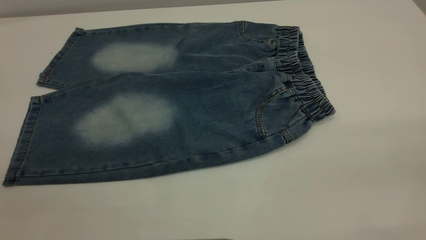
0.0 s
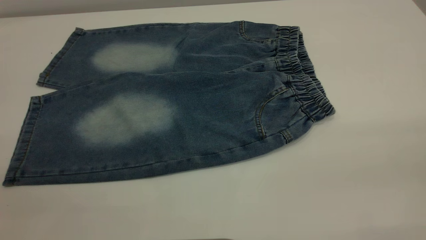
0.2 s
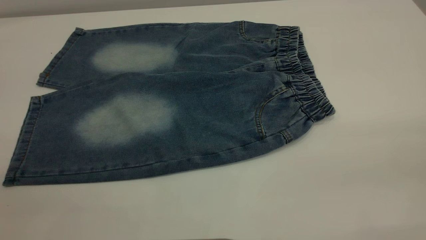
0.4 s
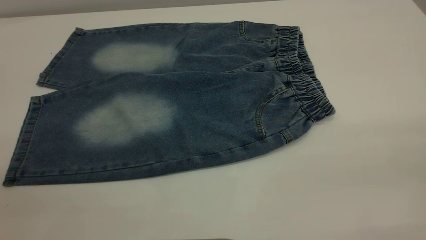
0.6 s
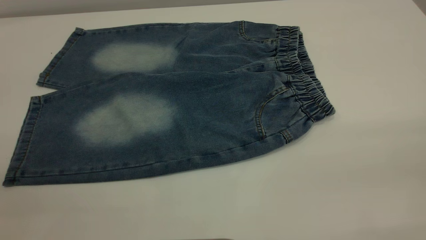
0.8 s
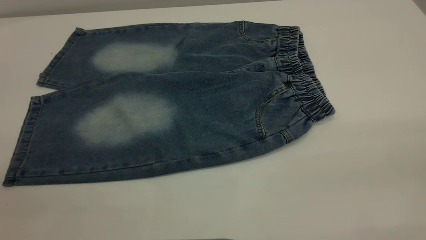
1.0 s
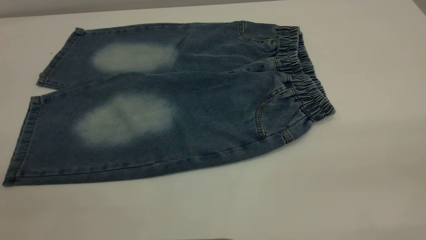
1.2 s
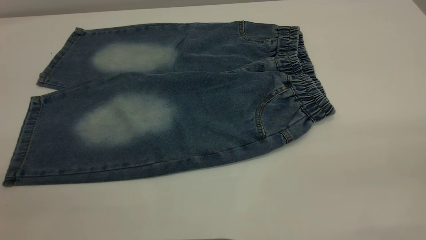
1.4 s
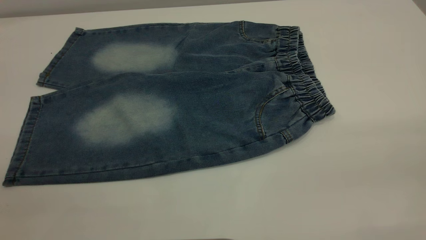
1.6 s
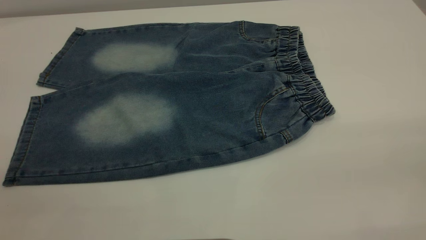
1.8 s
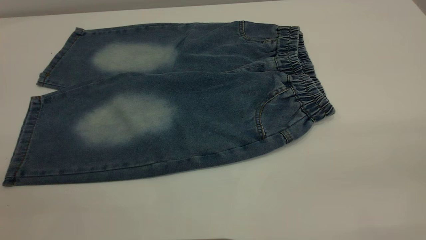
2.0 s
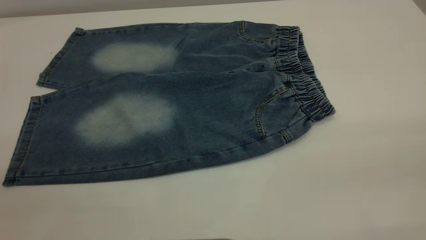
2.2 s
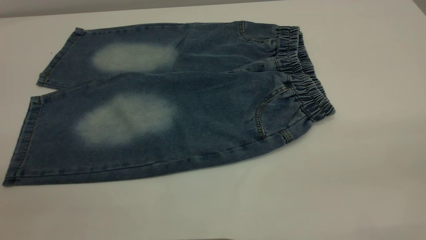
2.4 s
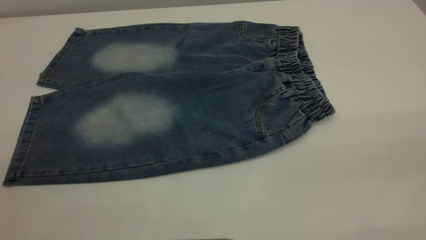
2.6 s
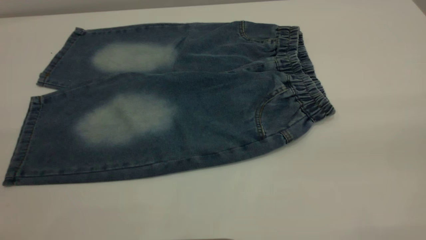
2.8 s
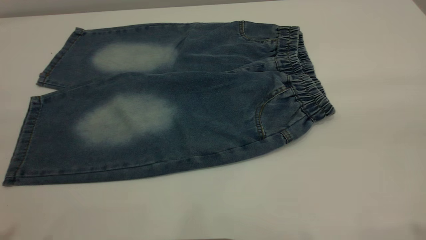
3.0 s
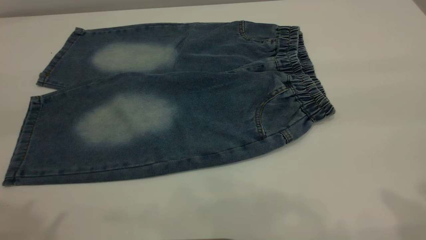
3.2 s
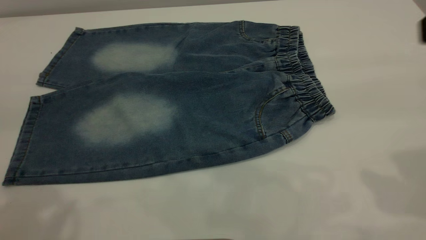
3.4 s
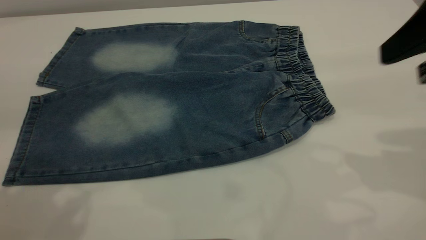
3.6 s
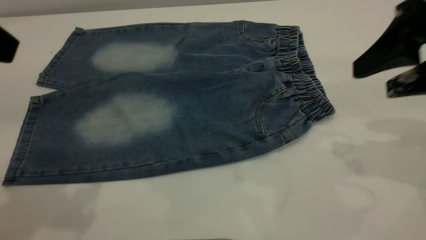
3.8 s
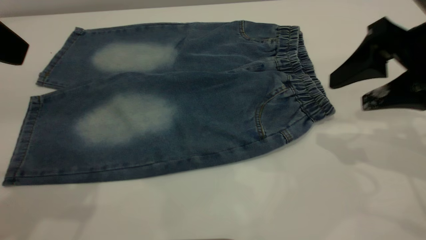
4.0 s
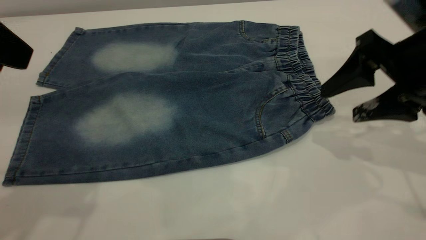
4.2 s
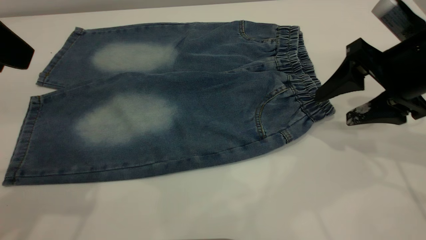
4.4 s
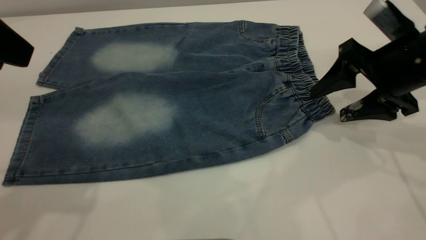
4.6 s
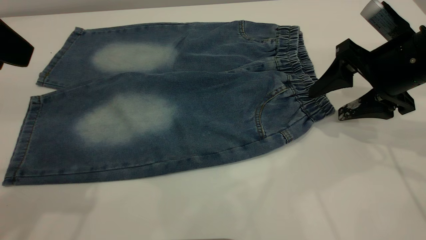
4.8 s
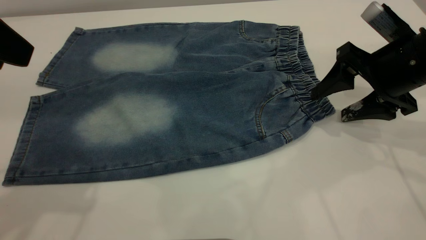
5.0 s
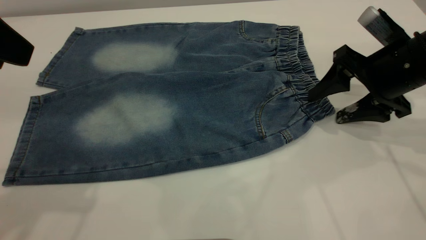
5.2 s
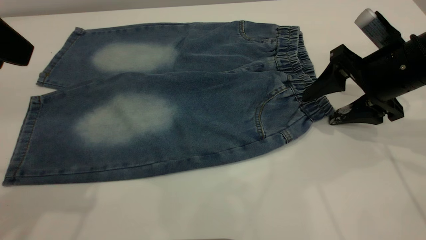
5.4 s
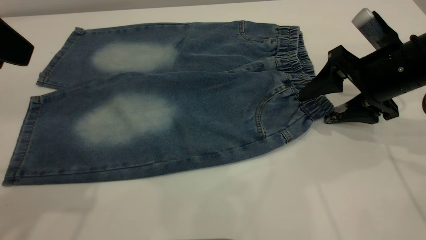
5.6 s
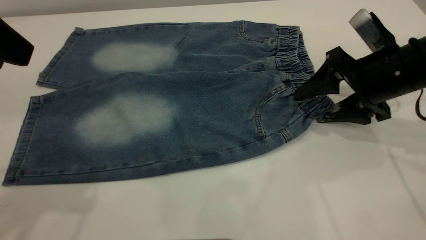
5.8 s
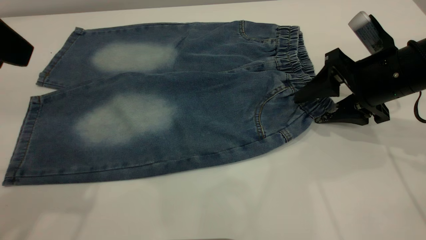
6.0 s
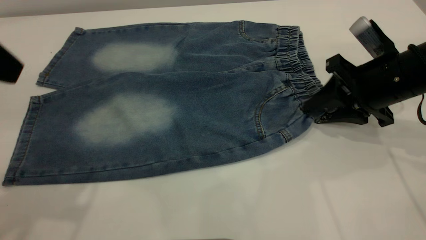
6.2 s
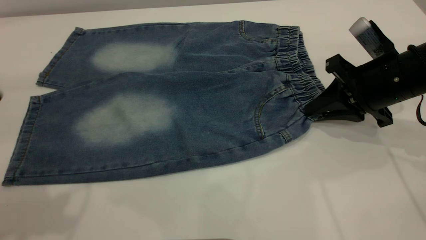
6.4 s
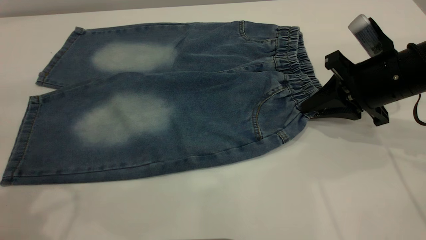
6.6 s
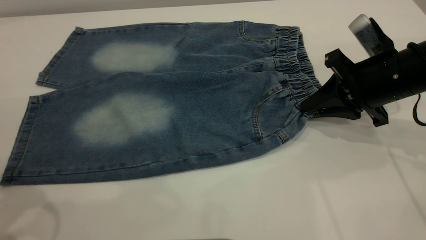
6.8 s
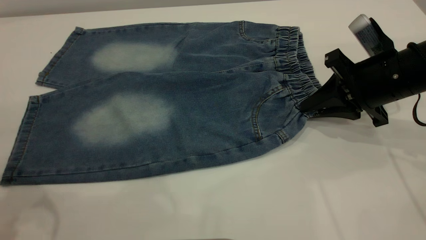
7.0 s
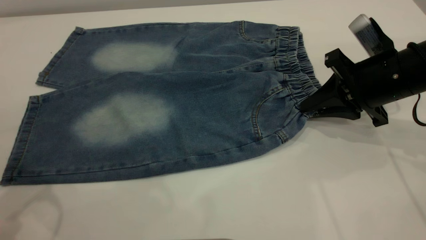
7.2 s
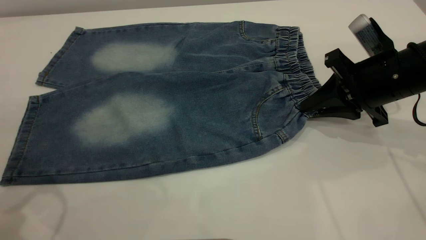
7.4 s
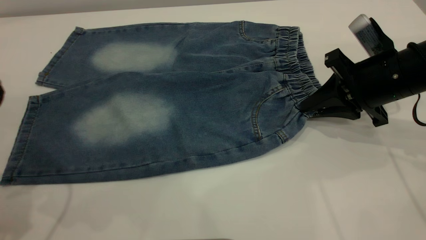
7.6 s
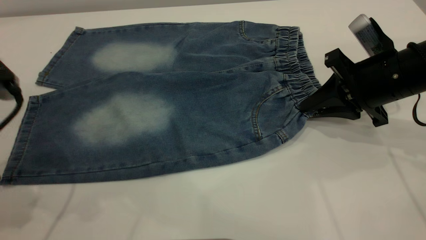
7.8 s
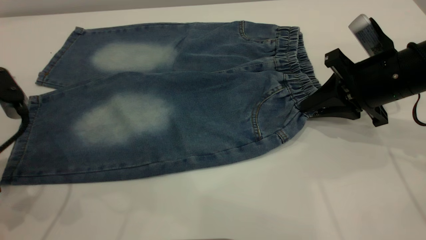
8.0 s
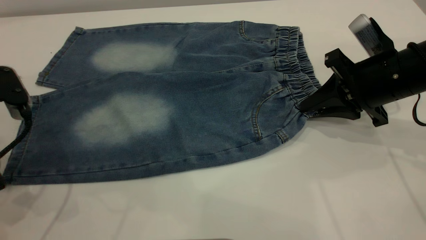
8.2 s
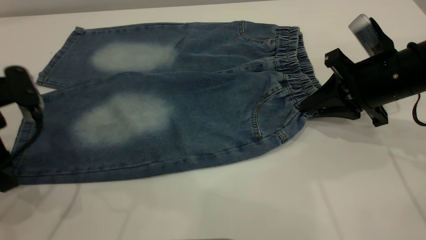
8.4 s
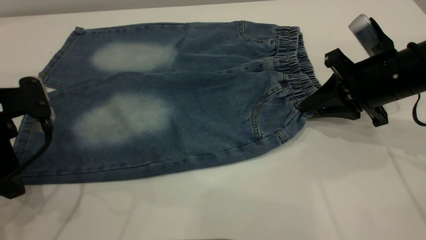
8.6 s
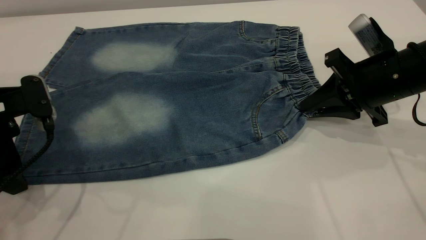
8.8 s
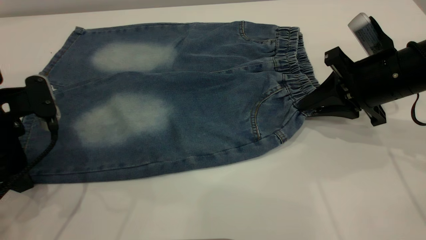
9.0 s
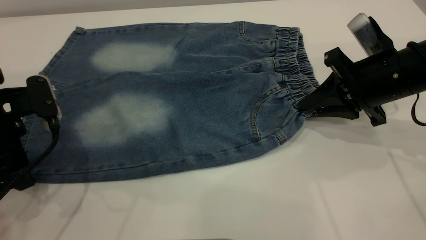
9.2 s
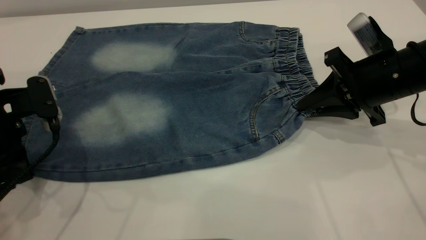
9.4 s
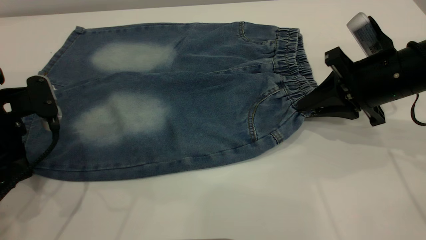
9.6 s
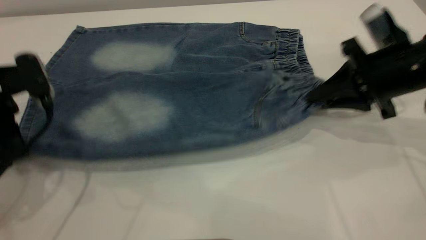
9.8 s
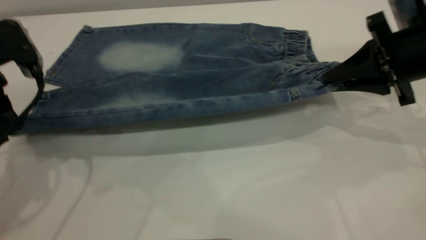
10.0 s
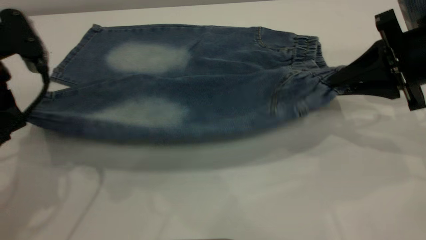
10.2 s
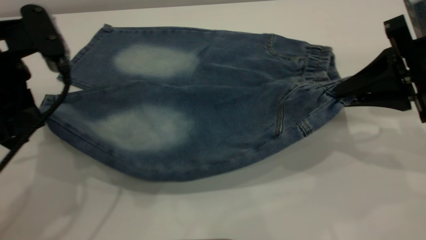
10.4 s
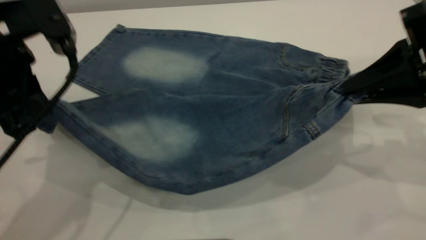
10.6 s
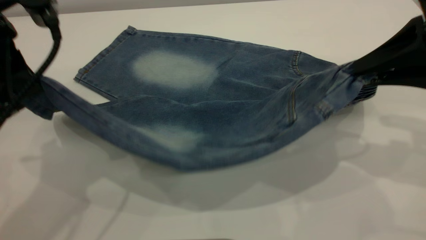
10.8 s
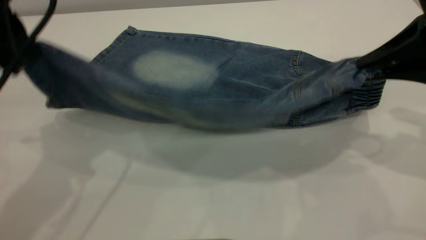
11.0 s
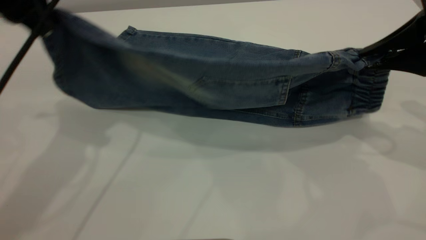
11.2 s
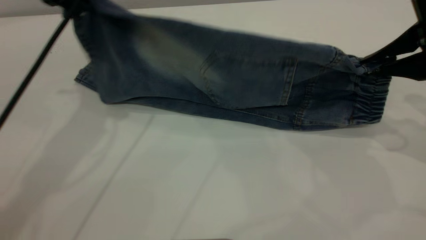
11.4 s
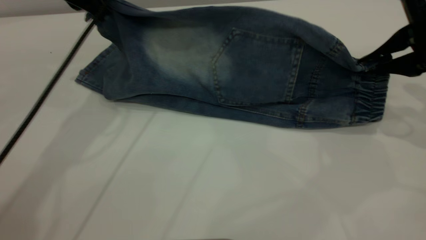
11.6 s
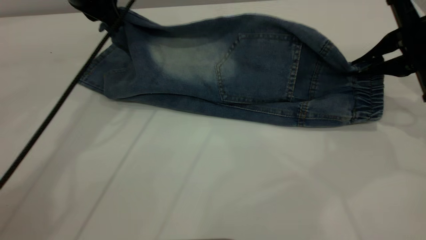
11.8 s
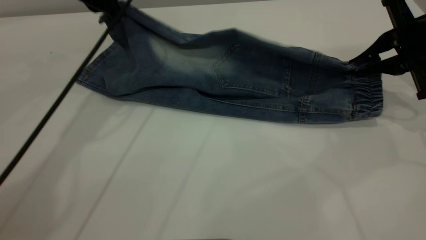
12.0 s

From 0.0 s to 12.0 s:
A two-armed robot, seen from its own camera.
From 0.0 s to 1.6 s: Both grippers stay about where they are.
From 3.0 s to 4.4 s: The left gripper heads forward and downward, covering some 15 cm, while the right gripper moves downward and forward, roughly 30 cm.
From 4.4 s to 6.0 s: The right gripper changes place by roughly 5 cm.
From 6.0 s to 7.6 s: The right gripper closes up; the left gripper shifts roughly 10 cm downward.
From 7.6 s to 9.0 s: The left gripper goes about 5 cm downward.
From 9.0 s to 10.4 s: The right gripper heads upward and backward, covering approximately 10 cm, while the left gripper moves upward and to the right, roughly 10 cm, and closes up.
From 10.4 s to 12.0 s: The right gripper shifts some 5 cm forward. Meanwhile the left gripper moves forward, about 20 cm.

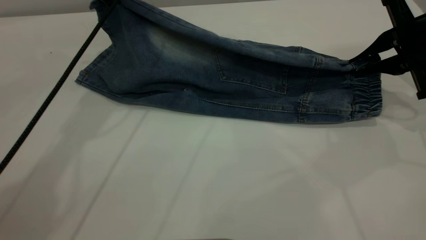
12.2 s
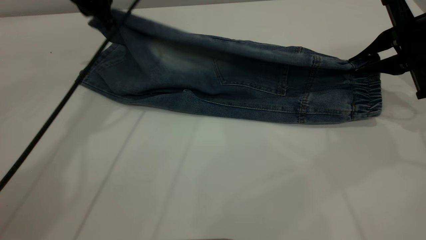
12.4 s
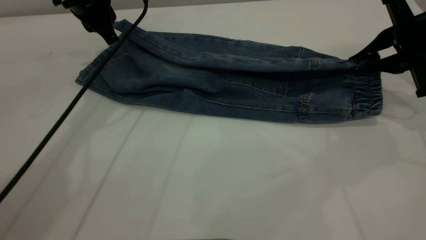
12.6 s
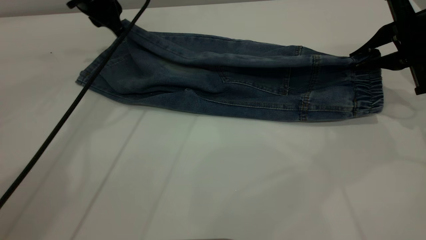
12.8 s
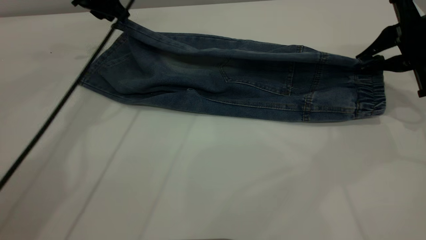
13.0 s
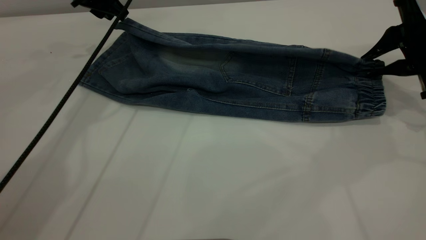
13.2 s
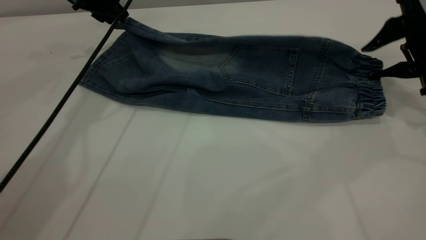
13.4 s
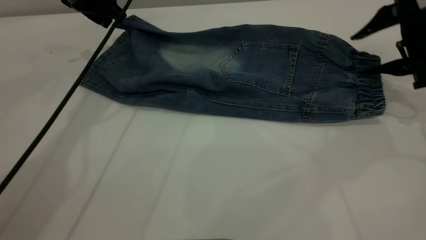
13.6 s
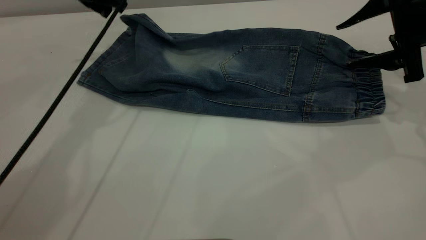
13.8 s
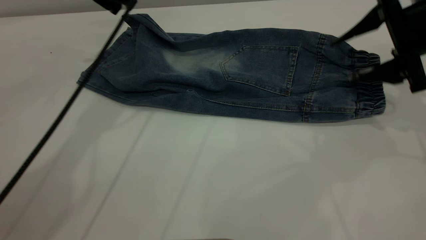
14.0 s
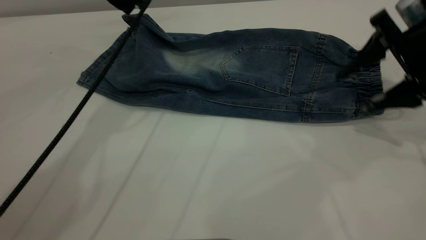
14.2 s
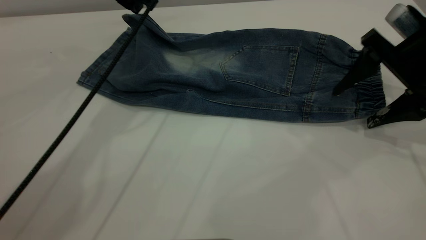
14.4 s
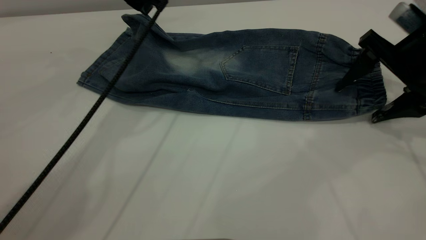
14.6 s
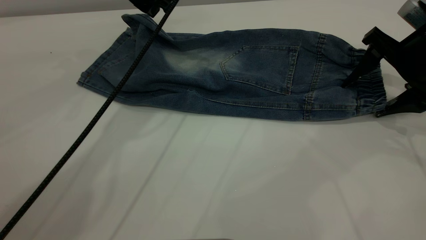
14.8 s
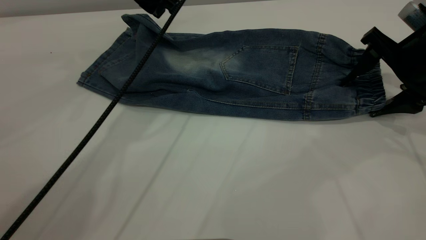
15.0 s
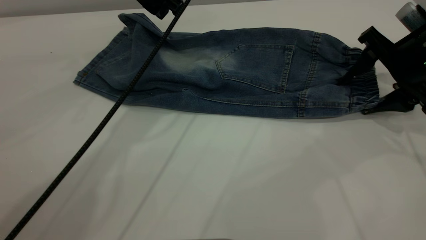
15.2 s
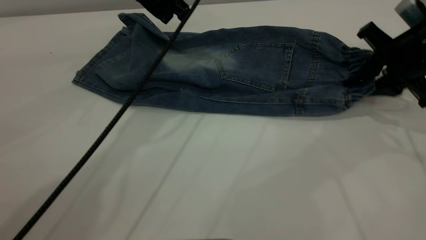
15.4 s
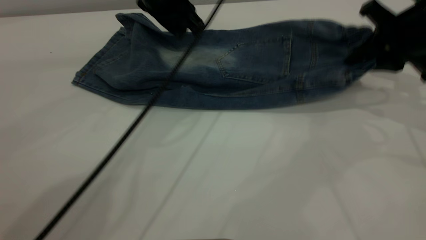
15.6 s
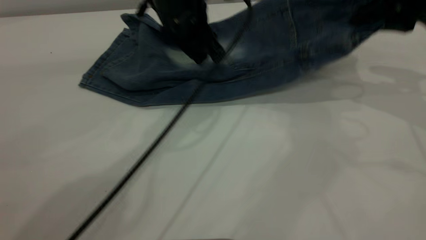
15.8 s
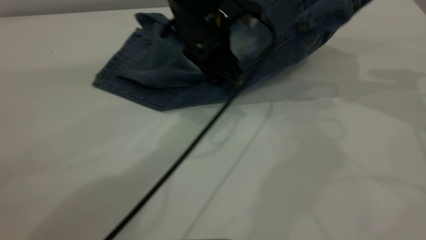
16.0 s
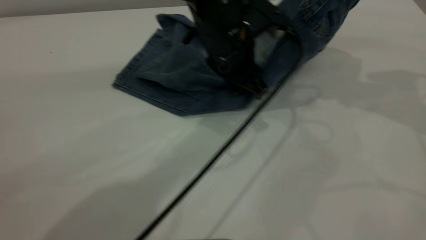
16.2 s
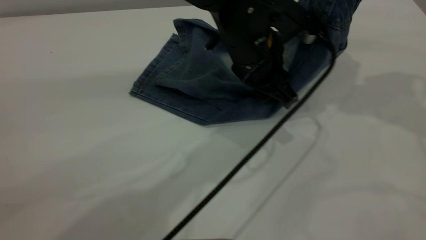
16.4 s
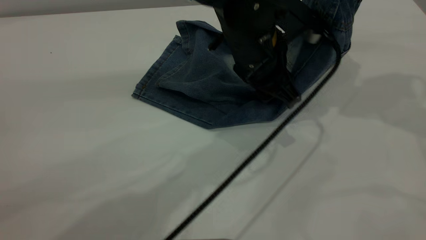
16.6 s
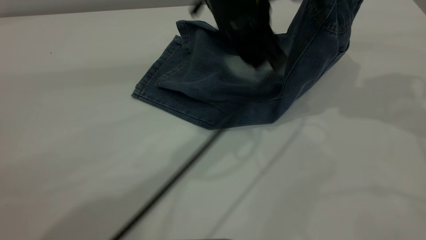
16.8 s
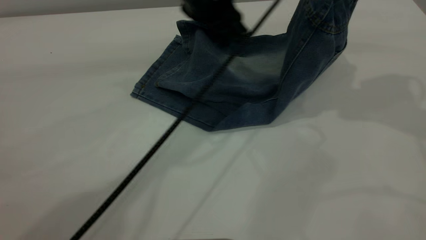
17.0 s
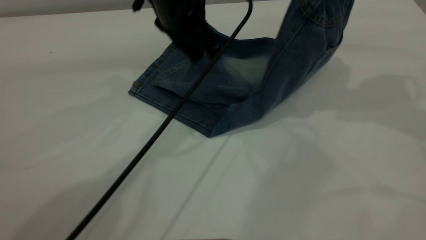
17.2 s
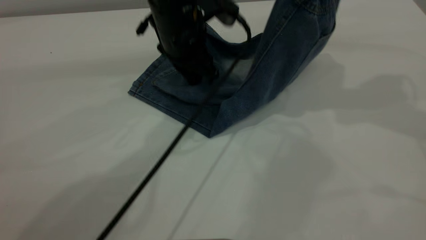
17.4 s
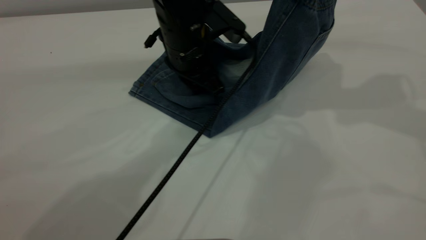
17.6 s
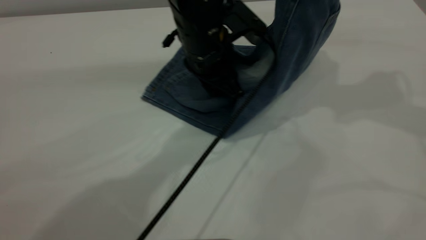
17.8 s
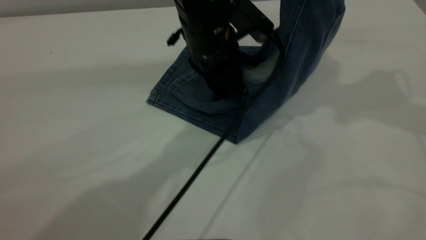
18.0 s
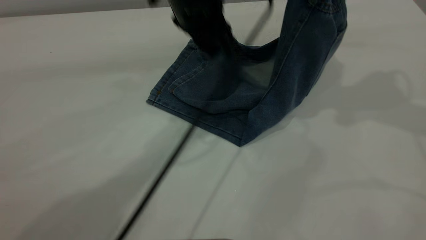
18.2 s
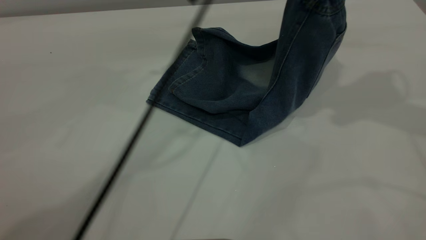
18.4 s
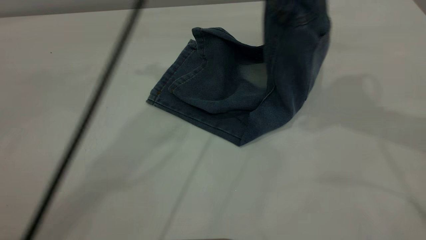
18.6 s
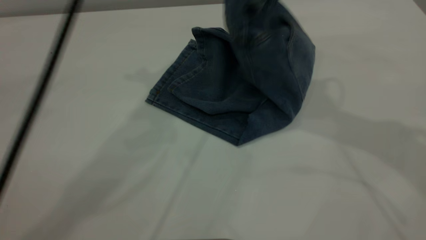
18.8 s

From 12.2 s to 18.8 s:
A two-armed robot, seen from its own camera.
From 12.2 s to 13.8 s: The left gripper opens its fingers; the right gripper opens its fingers.
From 13.8 s to 15.4 s: The left gripper is displaced to the right by about 10 cm, while the right gripper closes its fingers.
From 15.4 s to 17.2 s: The left gripper moves roughly 15 cm to the right and comes back. The right gripper travels upward by roughly 15 cm.
From 17.2 s to 18.8 s: The left gripper goes roughly 25 cm upward. Meanwhile the right gripper travels to the left by roughly 10 cm.
